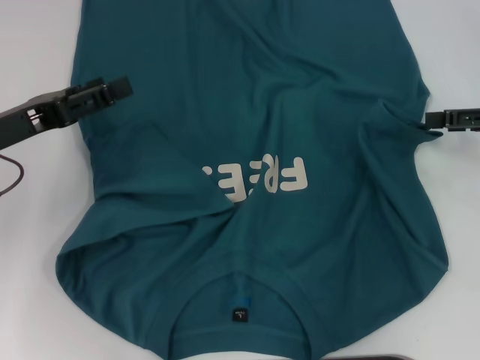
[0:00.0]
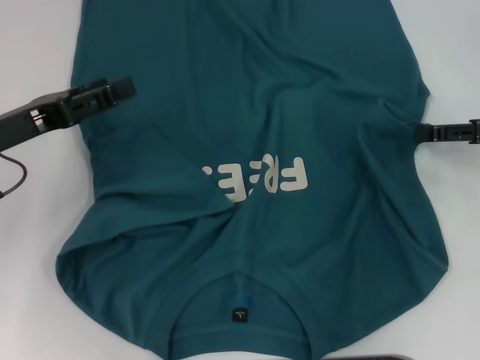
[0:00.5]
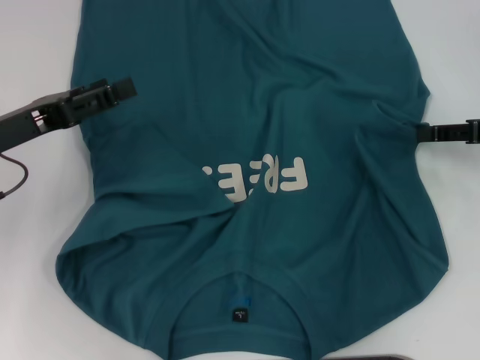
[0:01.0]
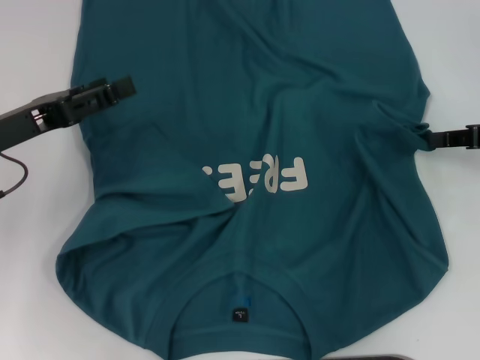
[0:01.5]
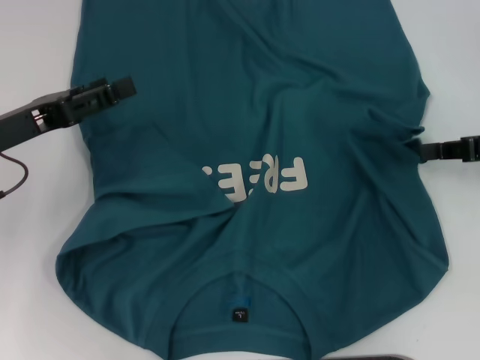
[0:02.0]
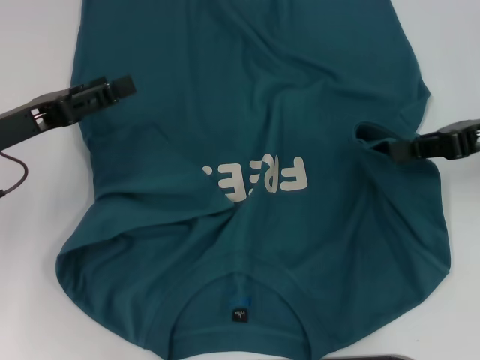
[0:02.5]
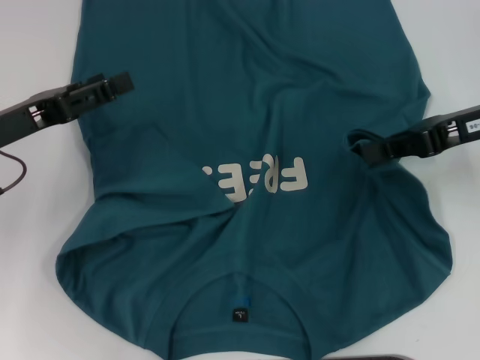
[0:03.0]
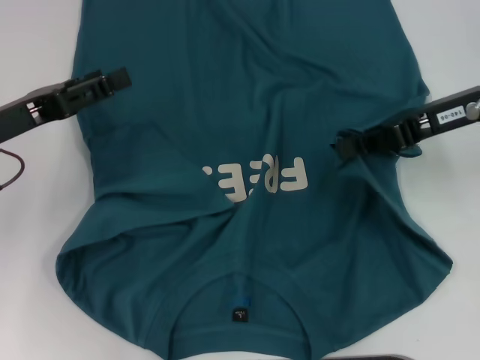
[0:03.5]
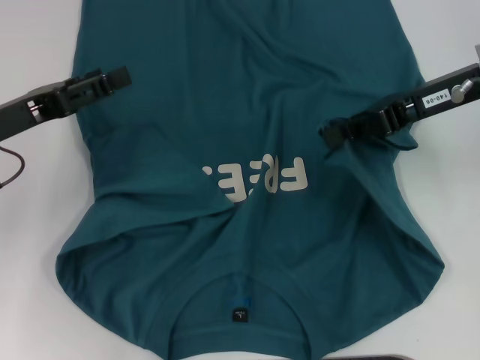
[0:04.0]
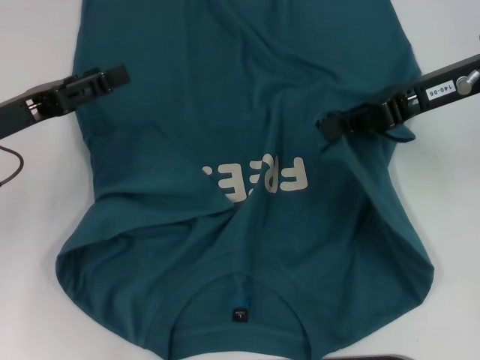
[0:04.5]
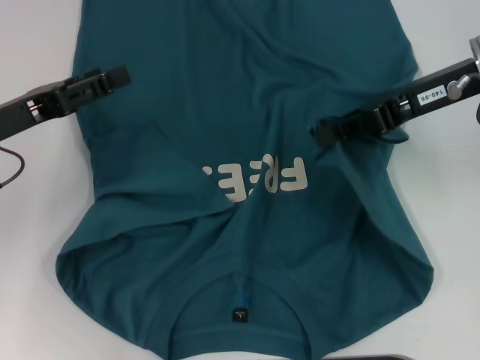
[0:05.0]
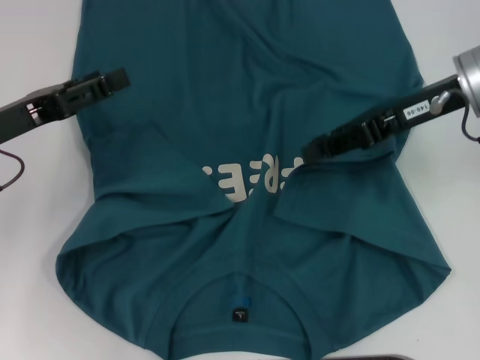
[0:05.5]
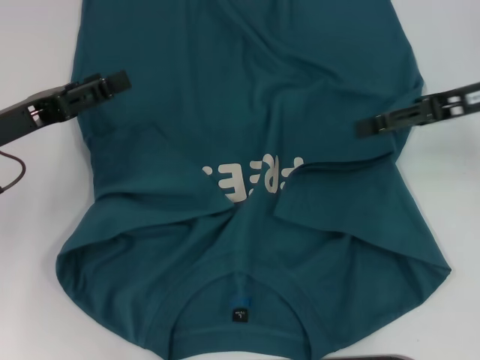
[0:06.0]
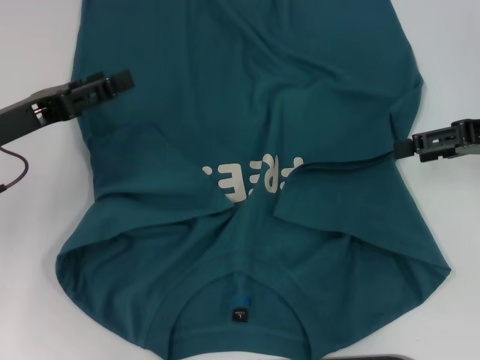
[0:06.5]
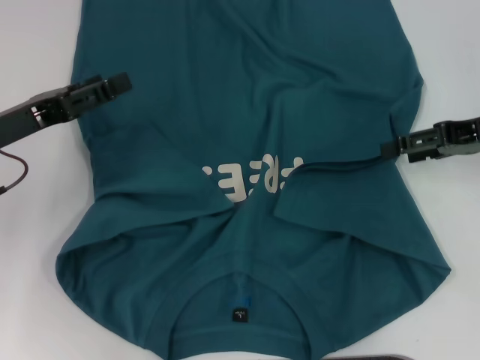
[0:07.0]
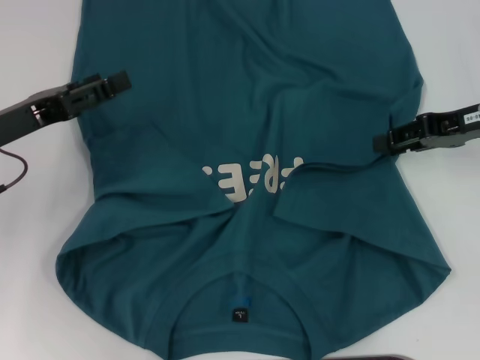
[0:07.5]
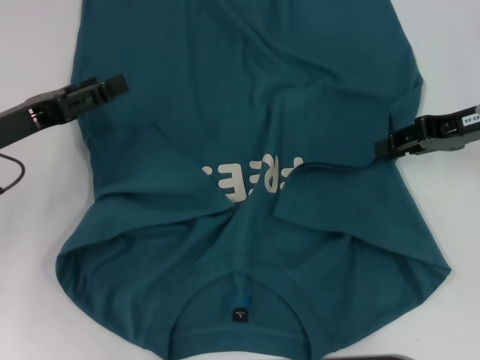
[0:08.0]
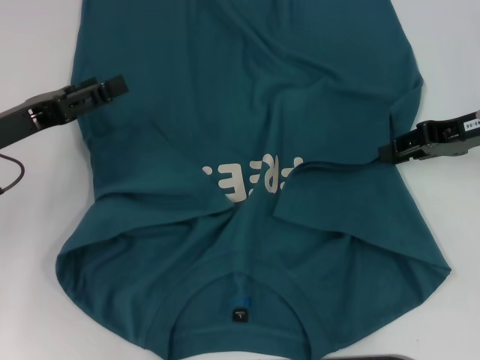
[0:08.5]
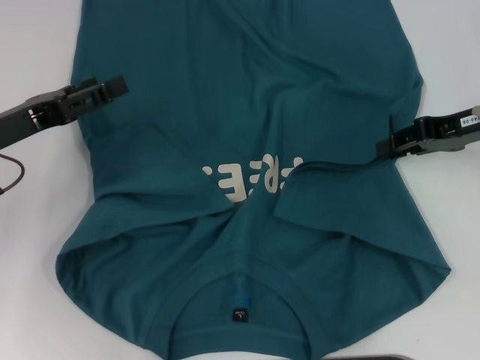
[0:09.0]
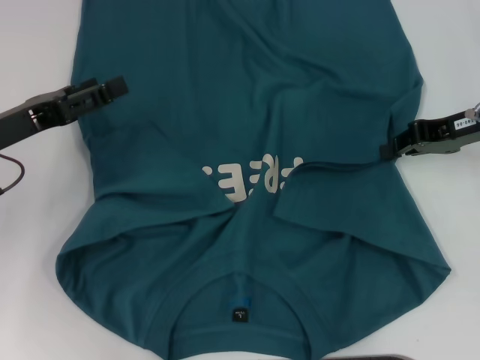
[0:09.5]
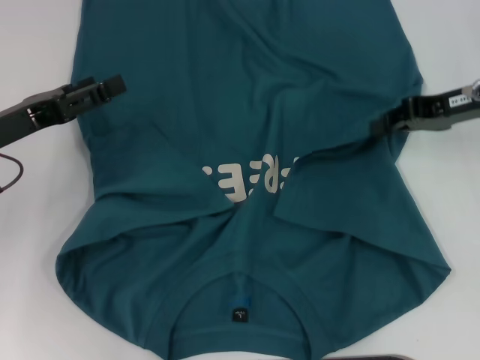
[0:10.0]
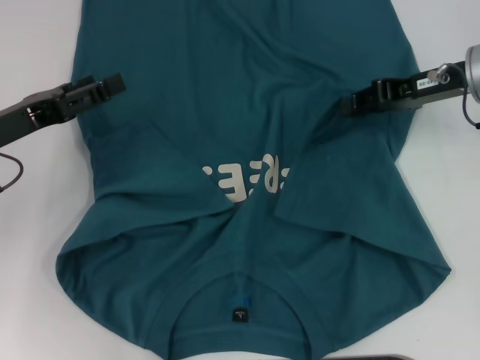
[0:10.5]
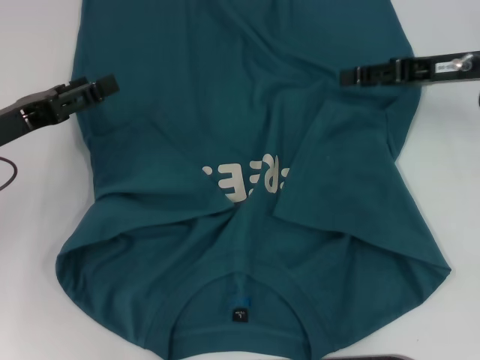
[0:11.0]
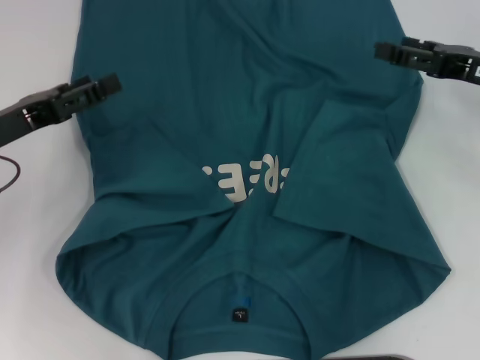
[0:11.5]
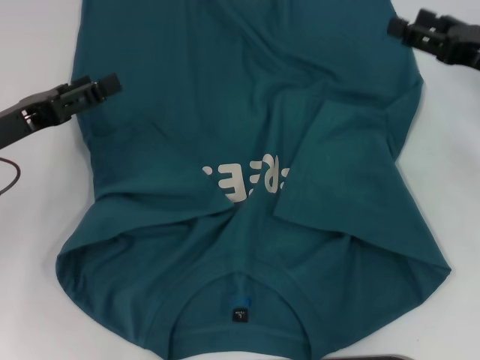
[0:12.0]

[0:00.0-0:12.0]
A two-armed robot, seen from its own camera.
Step, 0:00.0 to 0:10.5: Fold the bottom right sleeve to the right.
0:00.0 to 0:02.0: The right gripper closes up.
0:02.0 to 0:04.0: The right gripper is displaced to the left and upward by some 10 cm.
0:04.0 to 0:06.0: The right gripper moves roughly 5 cm, and opens.
0:06.0 to 0:08.0: The grippers make only small movements.
0:08.0 to 0:10.0: The right gripper closes up.
0:10.0 to 0:12.0: The right gripper opens up.

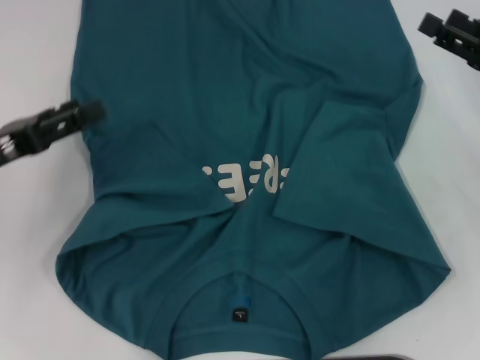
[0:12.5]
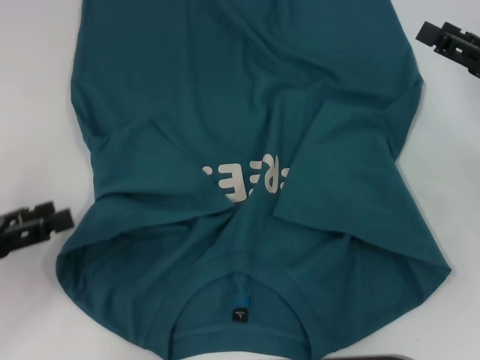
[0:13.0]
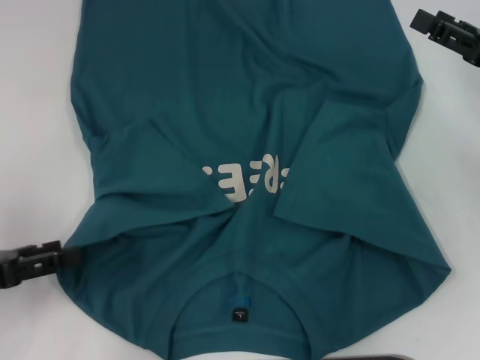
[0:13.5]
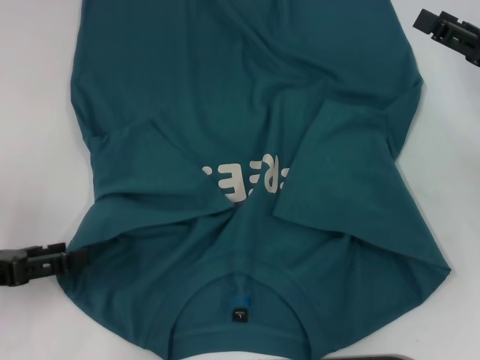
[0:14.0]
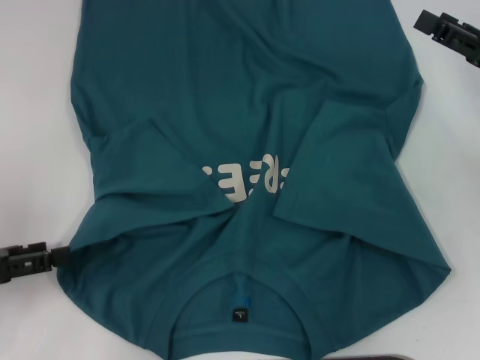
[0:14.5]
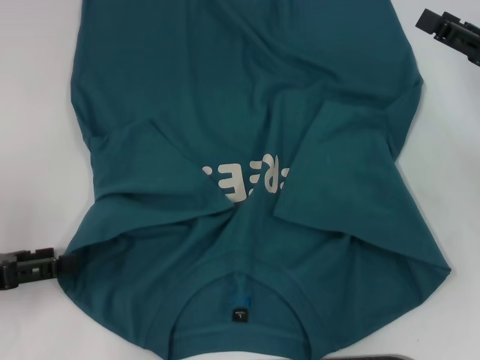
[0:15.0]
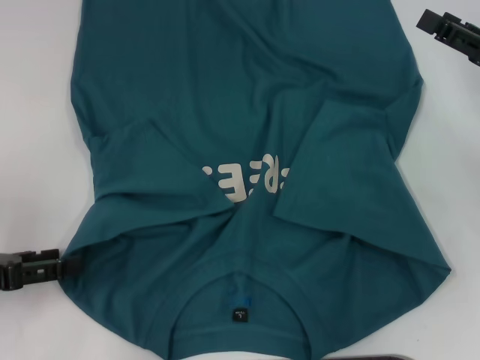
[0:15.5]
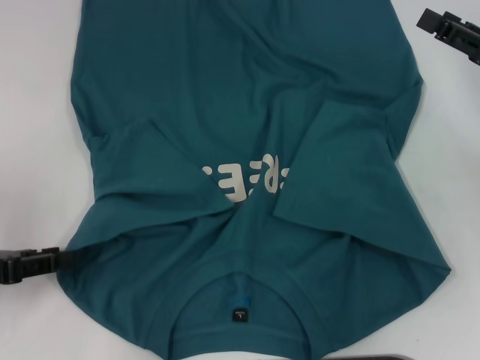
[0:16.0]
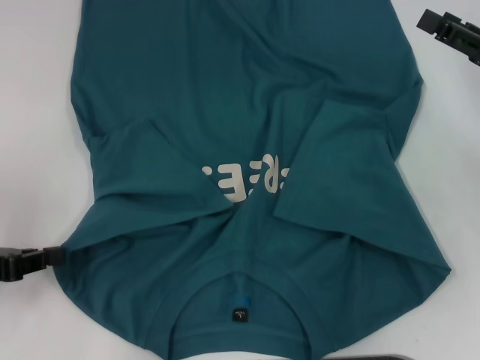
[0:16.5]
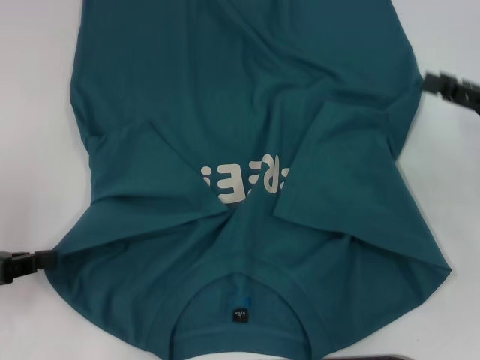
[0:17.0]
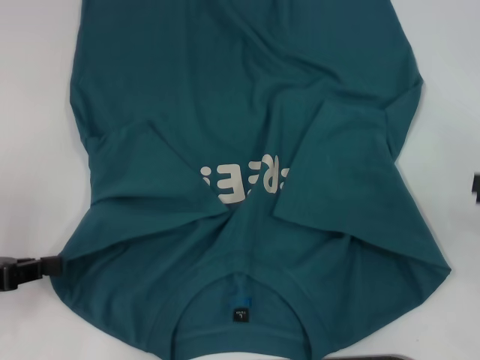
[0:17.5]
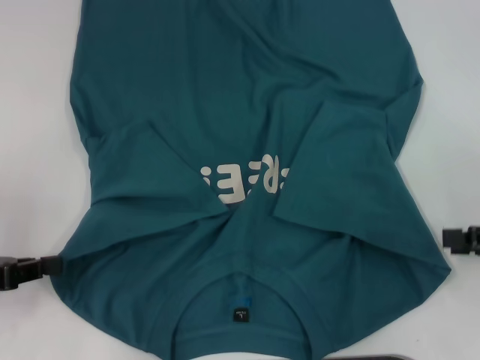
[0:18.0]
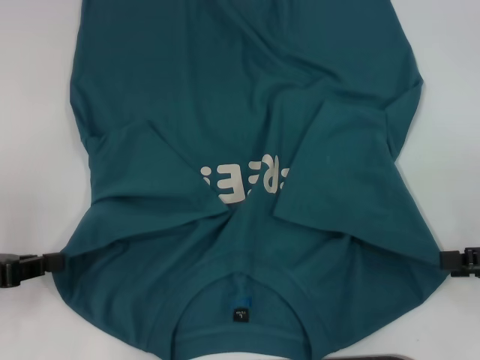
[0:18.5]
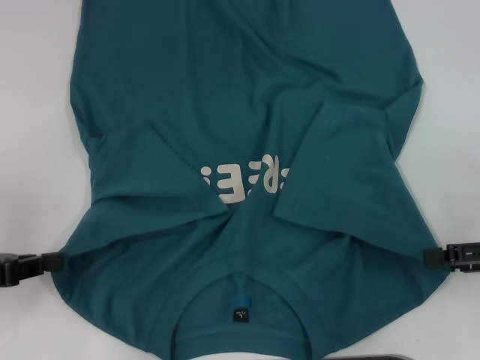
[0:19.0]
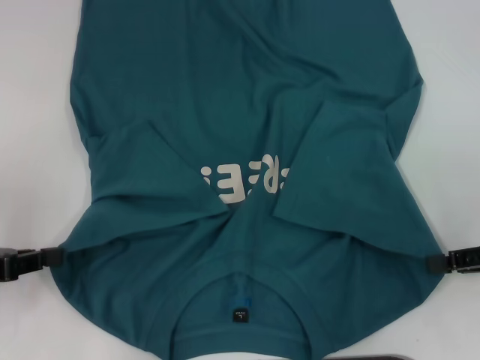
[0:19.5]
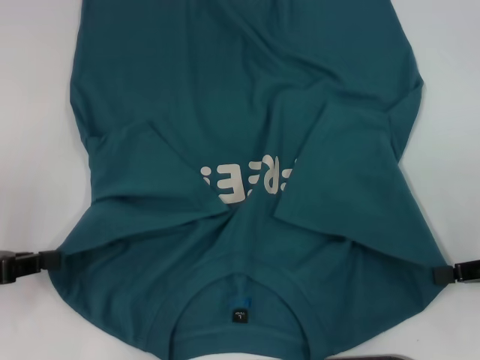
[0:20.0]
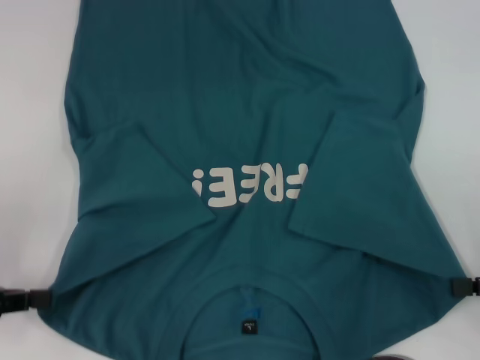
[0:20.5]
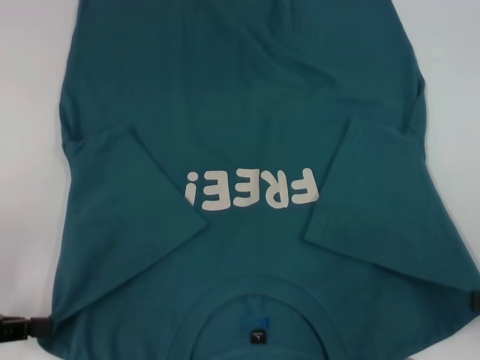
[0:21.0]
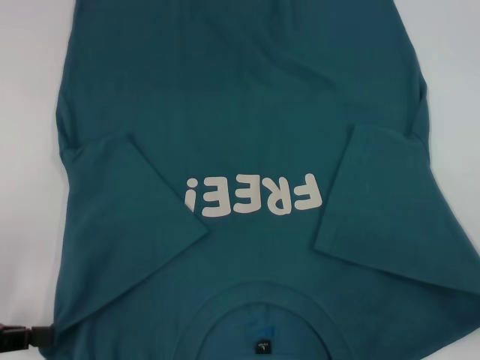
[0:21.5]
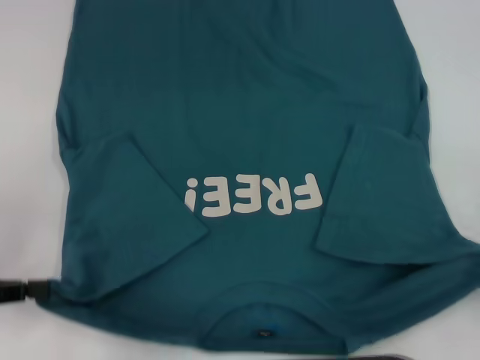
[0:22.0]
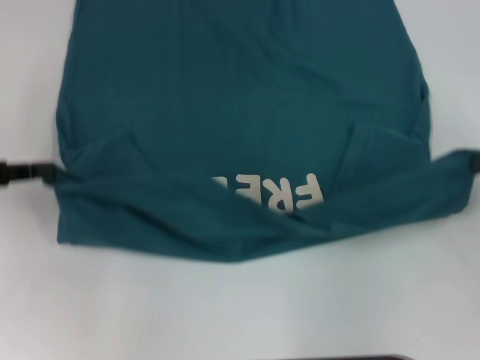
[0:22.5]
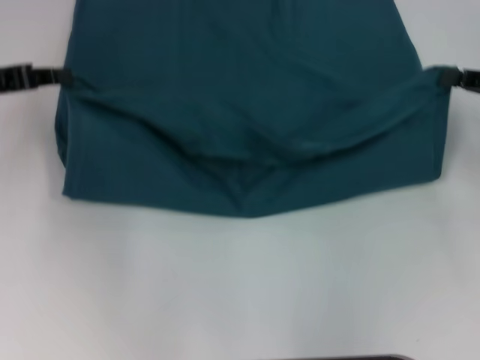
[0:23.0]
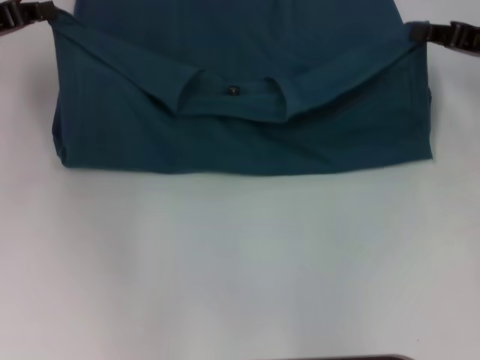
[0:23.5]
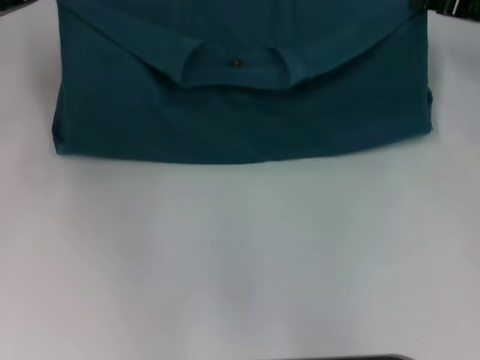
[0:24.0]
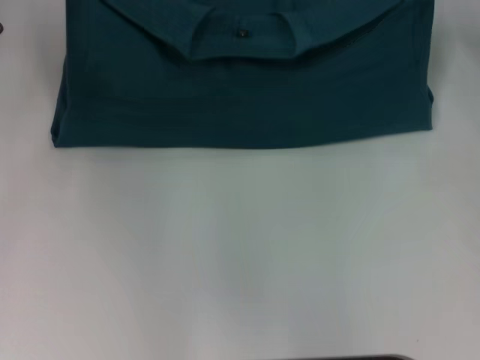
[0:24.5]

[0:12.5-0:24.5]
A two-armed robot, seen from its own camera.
Step, 0:12.5 to 0:16.5: Grab the bottom left corner with your left hand.
Step, 0:17.0 to 0:20.0: Grab the bottom right corner with your right hand.
0:12.5 to 0:14.5: The left gripper moves backward, about 5 cm.
0:16.5 to 0:18.5: The right gripper moves backward, some 10 cm.
0:18.5 to 0:20.5: The right gripper closes.
0:20.5 to 0:22.5: The left gripper moves forward, roughly 10 cm; the right gripper moves forward, some 5 cm.
0:22.5 to 0:24.5: The left gripper shifts approximately 15 cm forward and to the right, while the right gripper heads forward, covering about 20 cm.

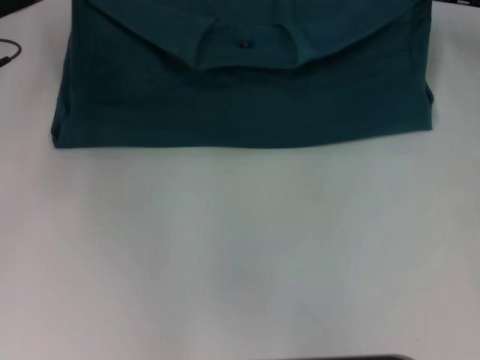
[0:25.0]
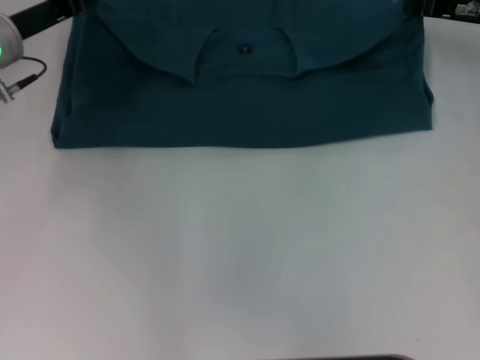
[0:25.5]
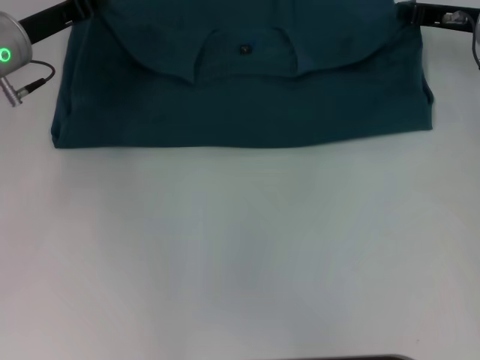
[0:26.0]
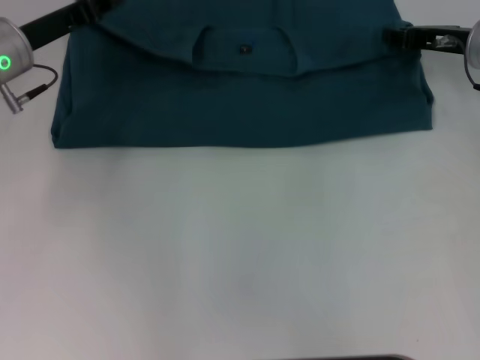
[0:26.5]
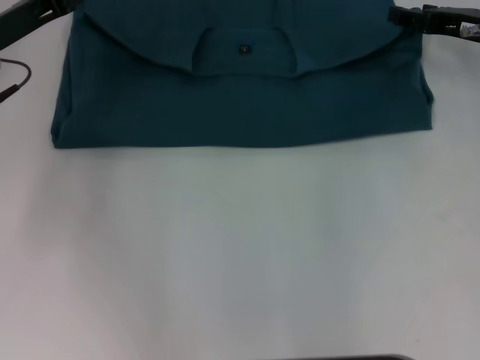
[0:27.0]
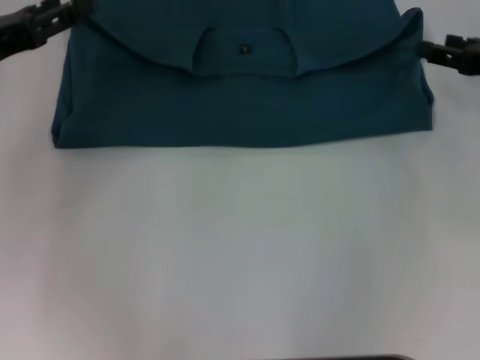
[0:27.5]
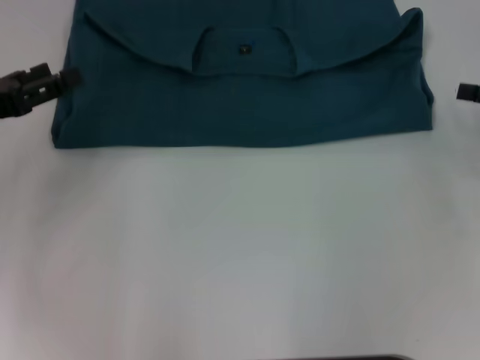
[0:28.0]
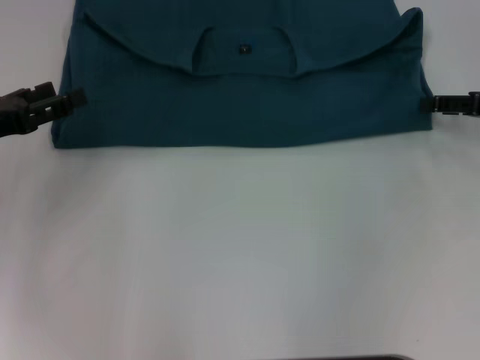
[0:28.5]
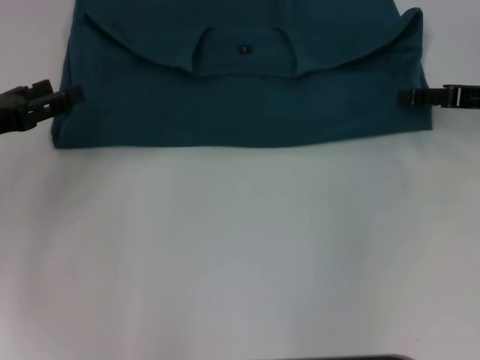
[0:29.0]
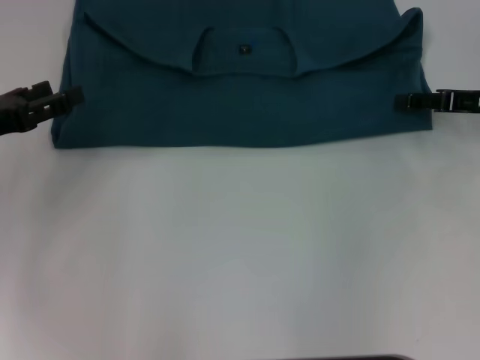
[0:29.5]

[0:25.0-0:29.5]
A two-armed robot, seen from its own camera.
0:25.0 to 0:27.0: The right gripper opens up; the left gripper opens.
0:27.0 to 0:29.5: The left gripper is displaced backward and to the left by about 10 cm. Meanwhile the right gripper moves backward, about 5 cm.
